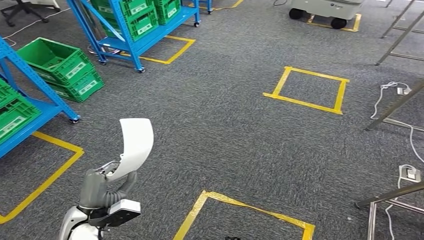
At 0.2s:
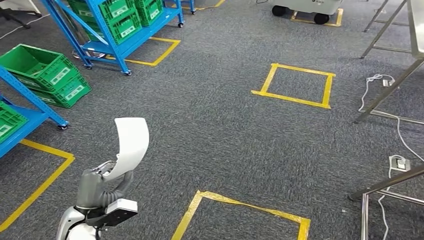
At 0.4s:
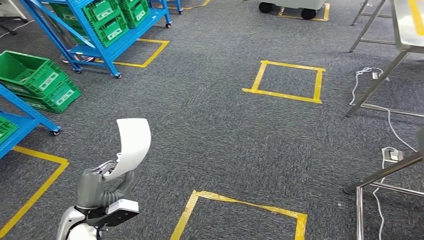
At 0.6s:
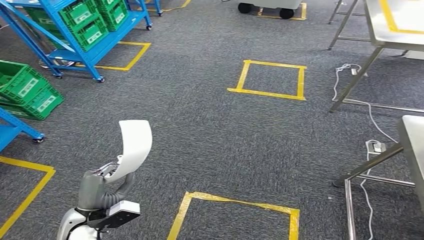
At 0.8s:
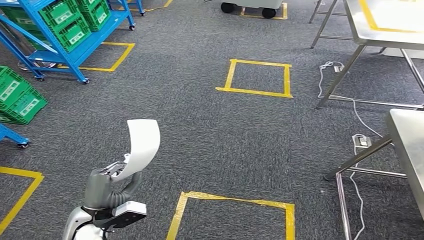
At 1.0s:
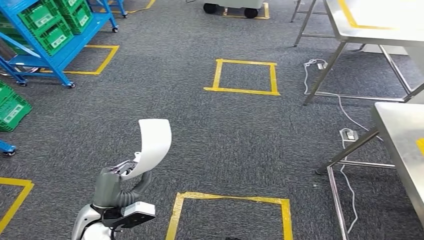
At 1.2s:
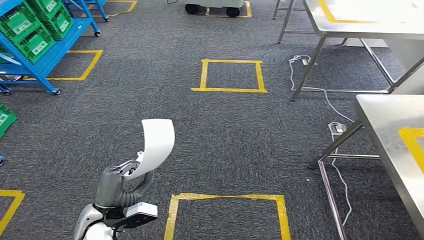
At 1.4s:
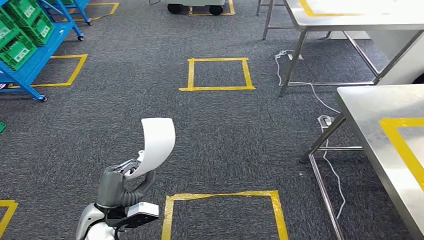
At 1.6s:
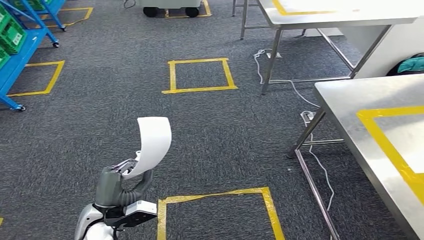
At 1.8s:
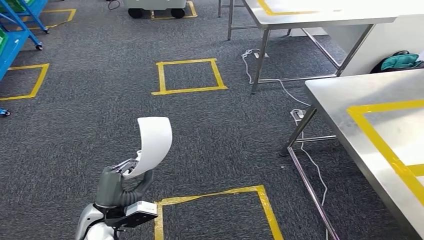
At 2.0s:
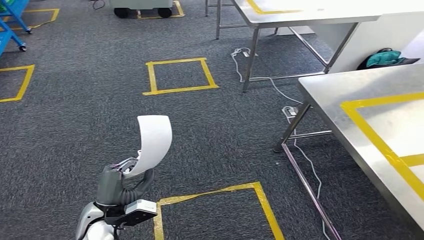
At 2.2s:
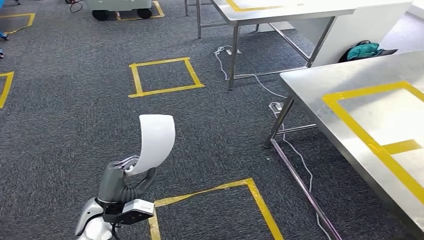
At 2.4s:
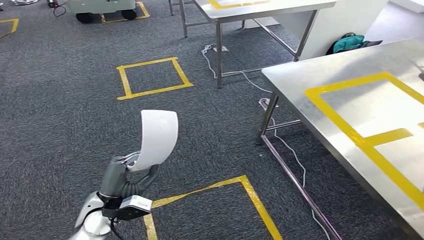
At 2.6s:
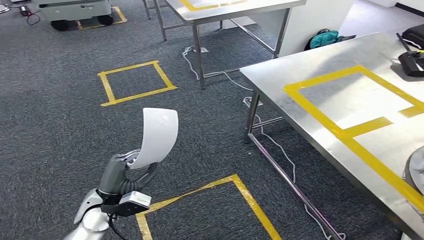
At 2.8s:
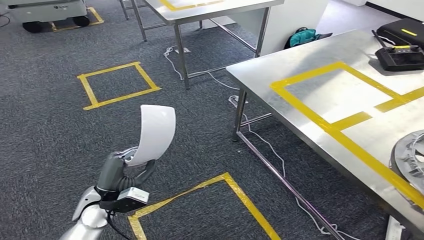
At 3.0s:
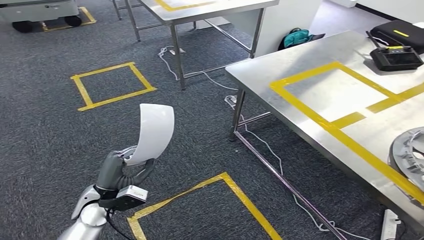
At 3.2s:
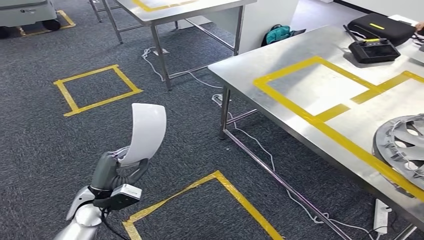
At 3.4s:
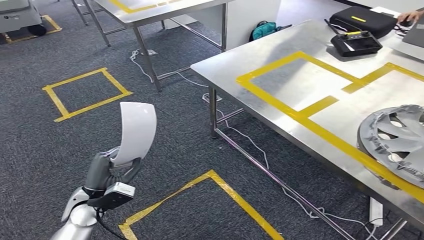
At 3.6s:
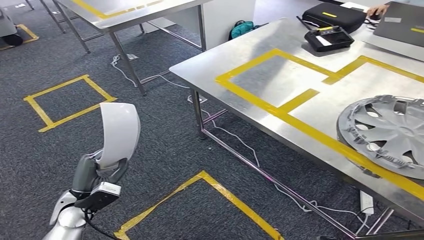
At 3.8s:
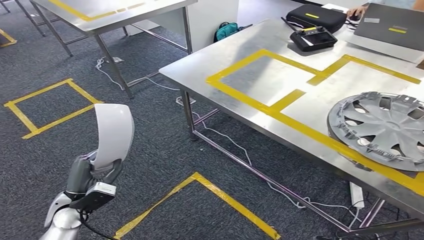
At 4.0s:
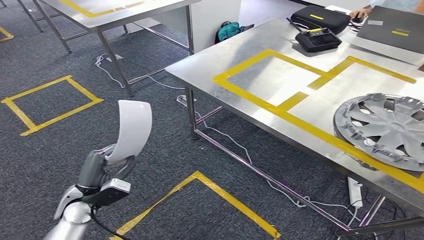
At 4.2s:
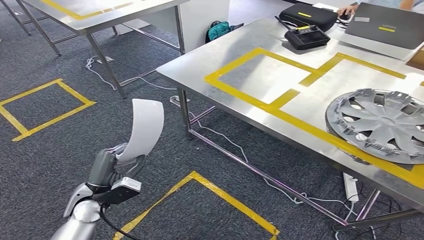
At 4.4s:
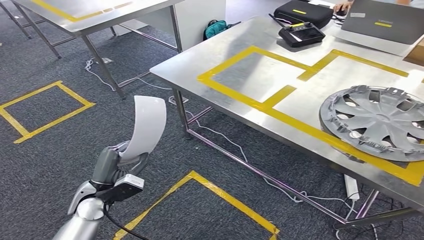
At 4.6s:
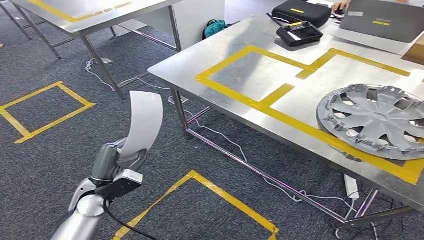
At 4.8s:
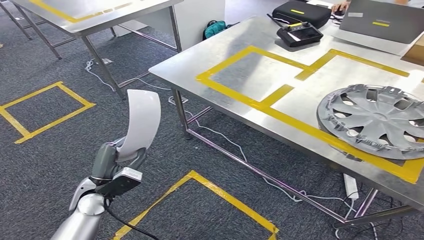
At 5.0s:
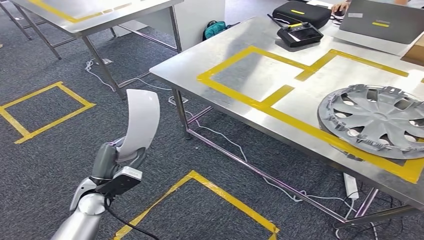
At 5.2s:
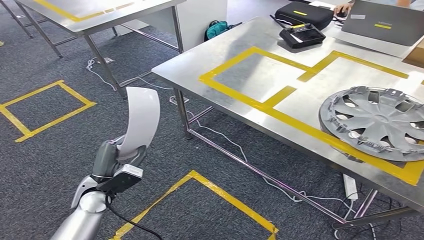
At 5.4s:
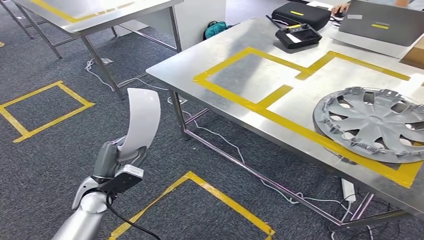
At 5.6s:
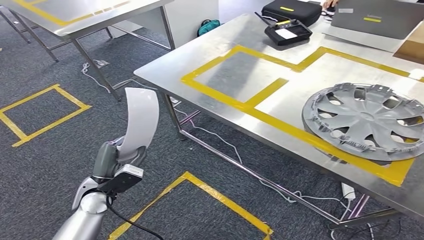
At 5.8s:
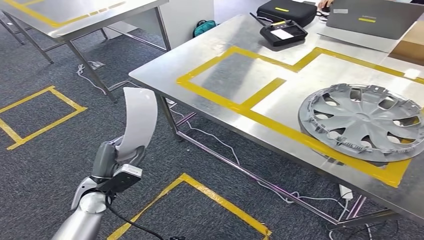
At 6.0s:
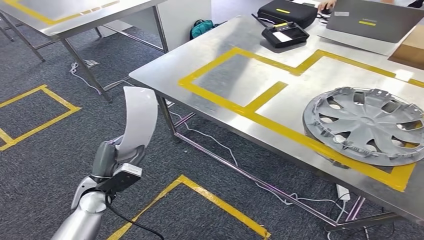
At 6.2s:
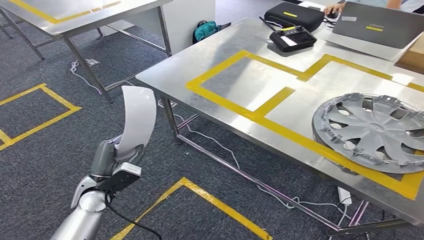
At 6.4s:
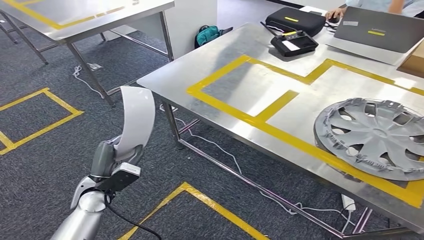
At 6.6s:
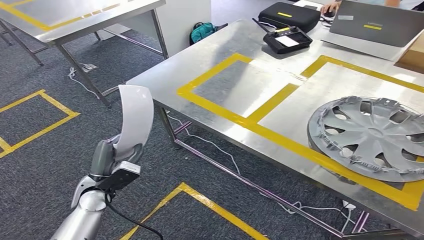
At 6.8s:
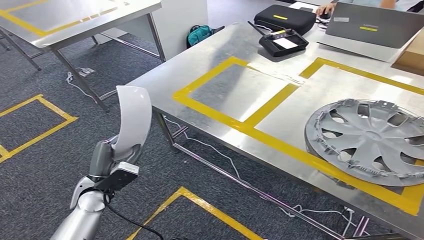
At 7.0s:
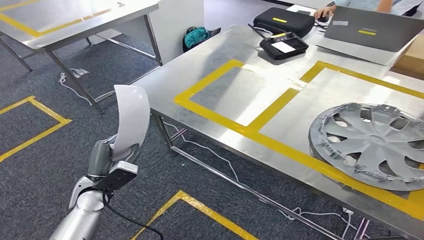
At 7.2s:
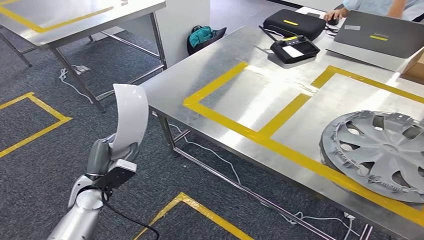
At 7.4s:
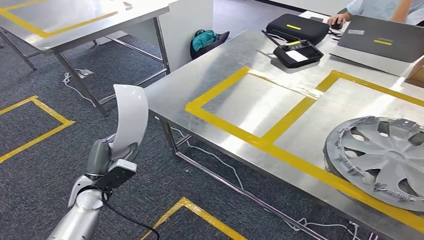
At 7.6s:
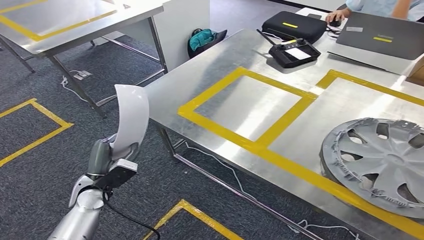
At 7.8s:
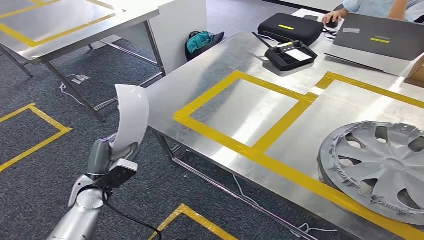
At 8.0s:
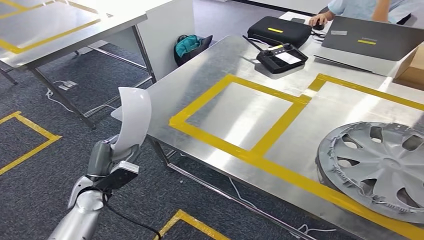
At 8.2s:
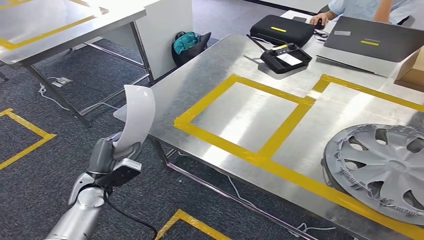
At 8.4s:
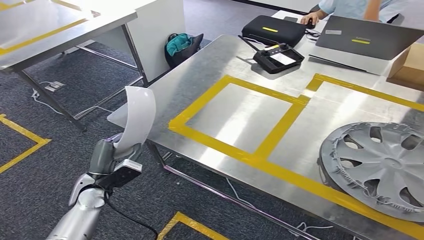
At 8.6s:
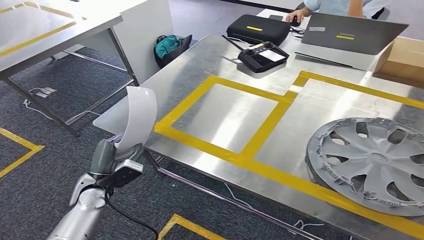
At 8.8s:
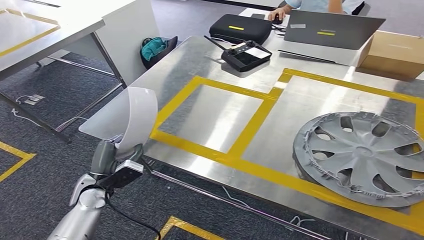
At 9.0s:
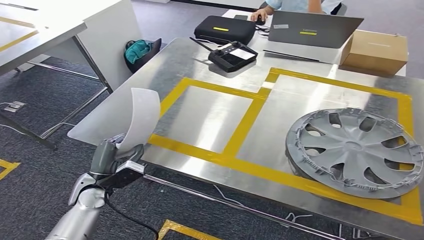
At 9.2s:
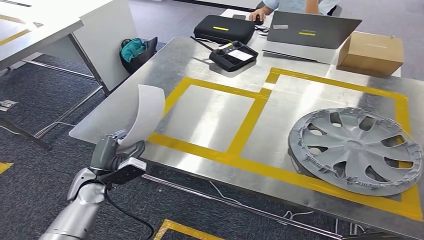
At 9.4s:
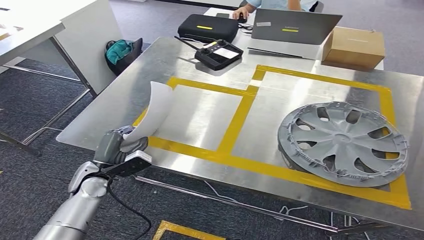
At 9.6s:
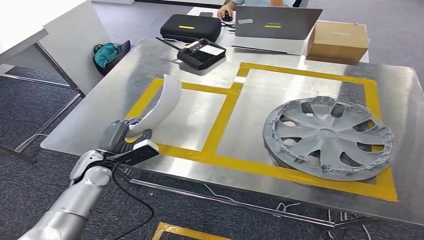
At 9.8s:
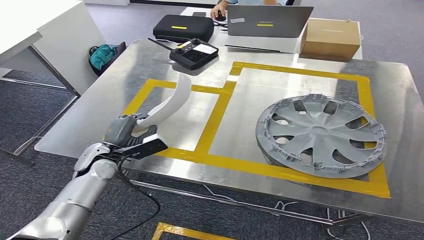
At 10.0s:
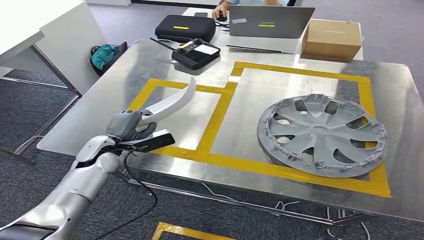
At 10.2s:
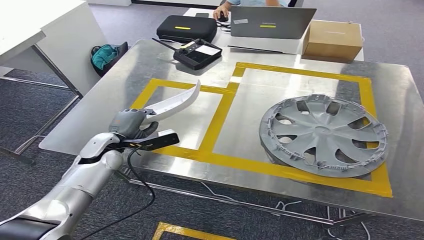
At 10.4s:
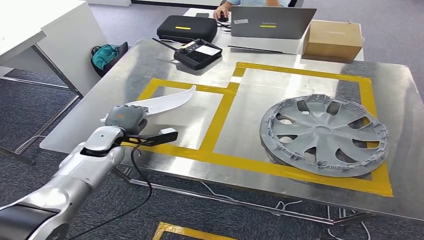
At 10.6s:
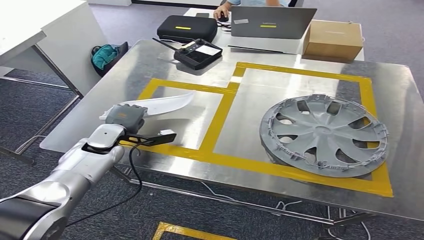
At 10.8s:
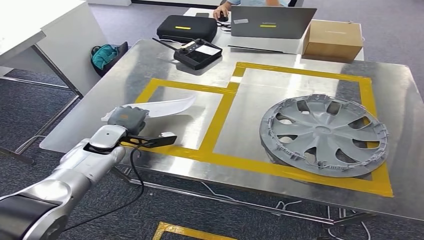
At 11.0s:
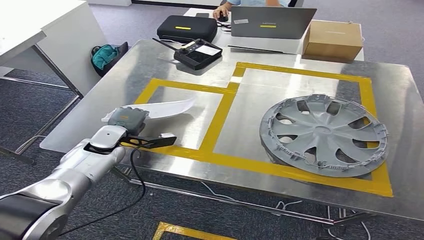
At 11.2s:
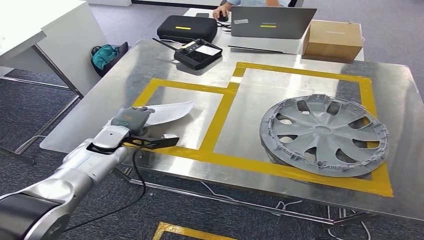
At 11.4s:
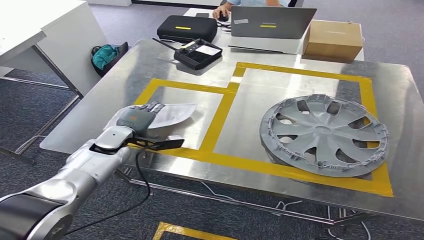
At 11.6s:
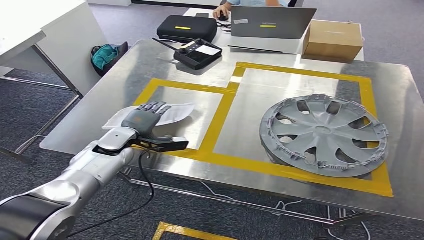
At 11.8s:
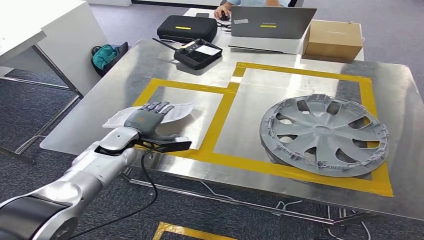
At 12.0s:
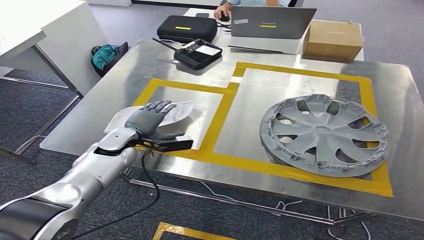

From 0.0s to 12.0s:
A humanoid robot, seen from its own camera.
Step, from 0.0s to 8.2s: Move the small component to the workbench.
From 10.4s to 12.0s: The hands stay close to where they were, moving slightly.

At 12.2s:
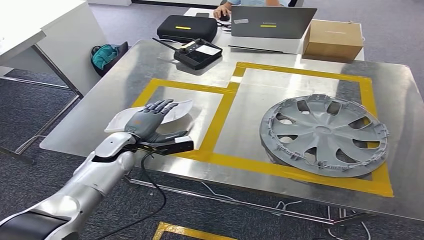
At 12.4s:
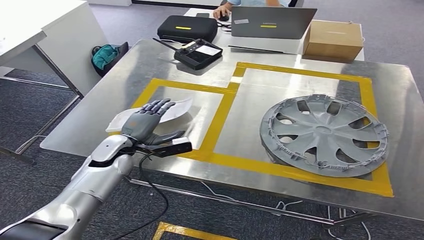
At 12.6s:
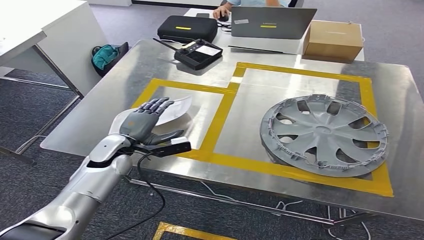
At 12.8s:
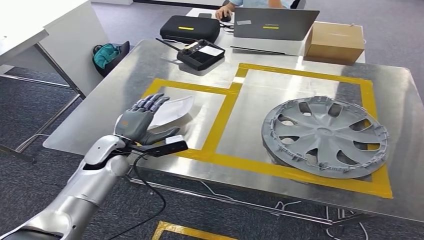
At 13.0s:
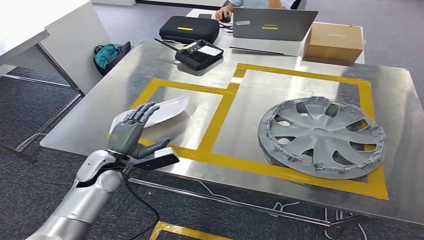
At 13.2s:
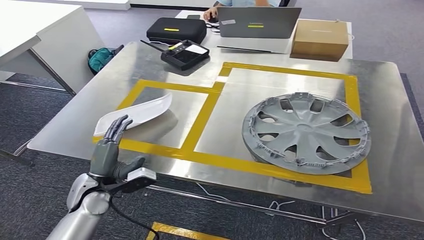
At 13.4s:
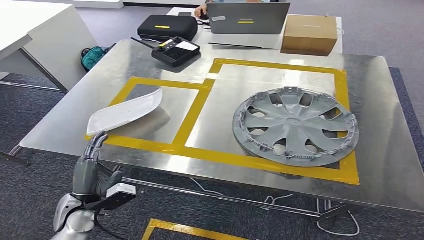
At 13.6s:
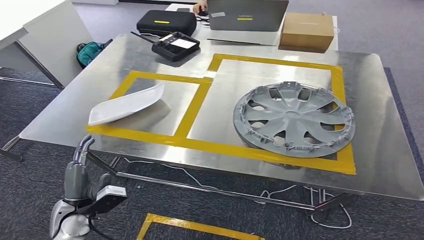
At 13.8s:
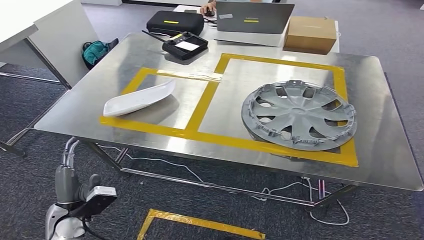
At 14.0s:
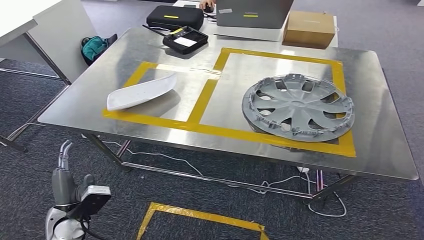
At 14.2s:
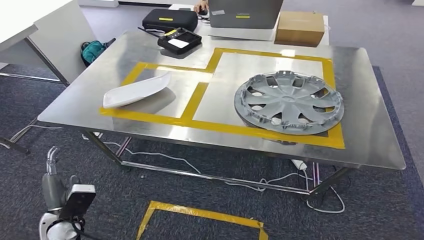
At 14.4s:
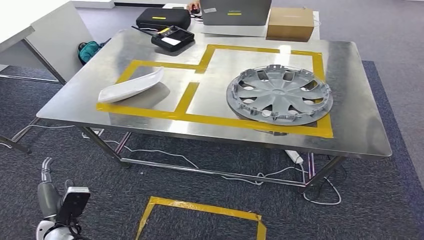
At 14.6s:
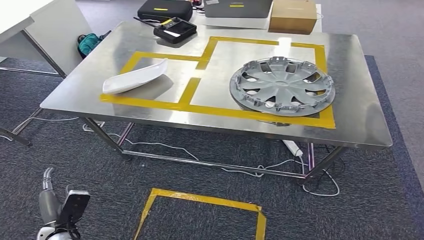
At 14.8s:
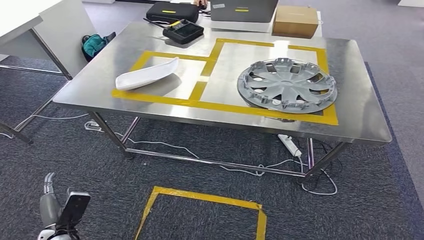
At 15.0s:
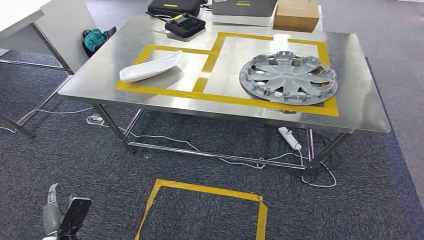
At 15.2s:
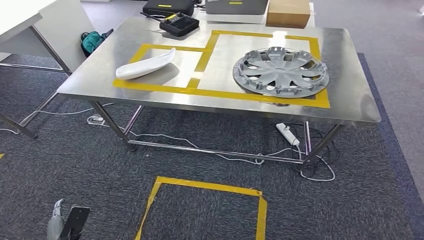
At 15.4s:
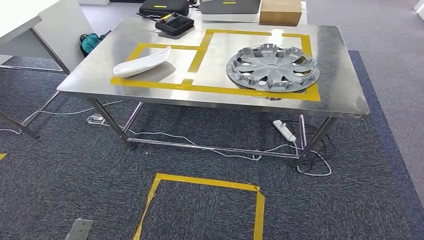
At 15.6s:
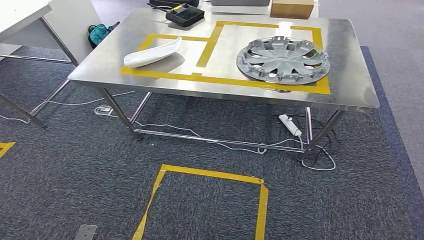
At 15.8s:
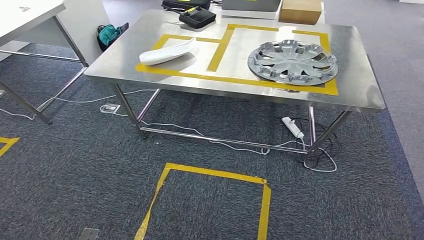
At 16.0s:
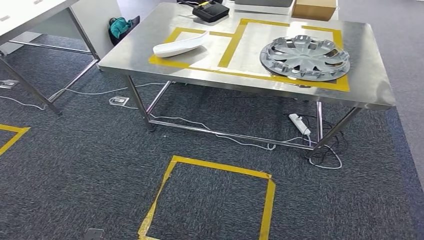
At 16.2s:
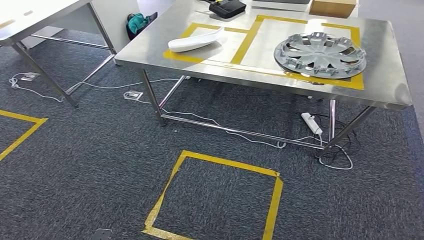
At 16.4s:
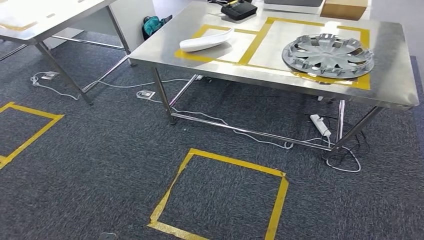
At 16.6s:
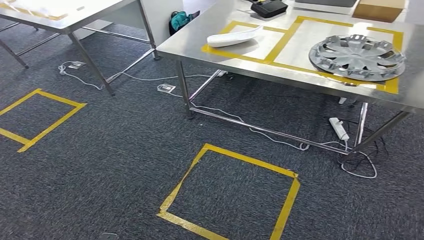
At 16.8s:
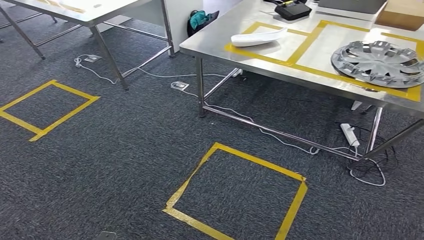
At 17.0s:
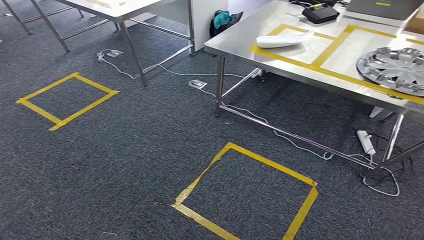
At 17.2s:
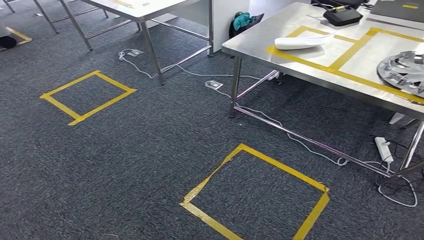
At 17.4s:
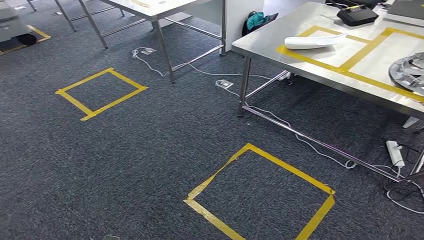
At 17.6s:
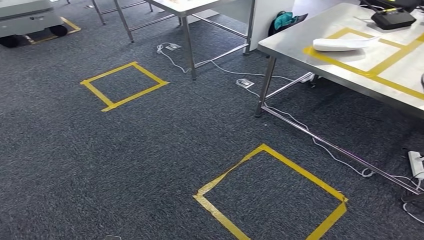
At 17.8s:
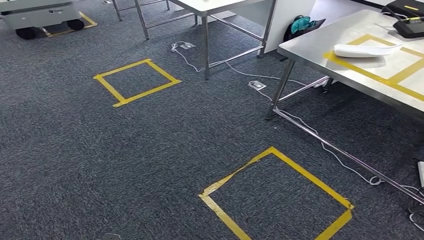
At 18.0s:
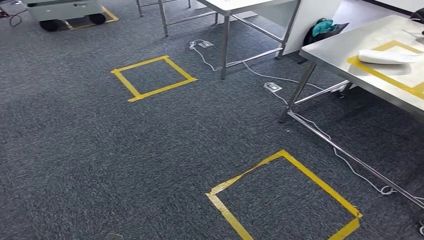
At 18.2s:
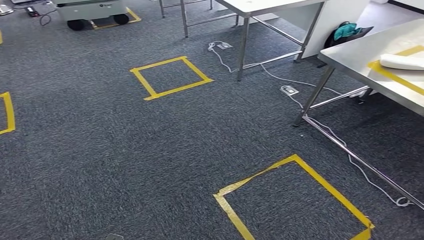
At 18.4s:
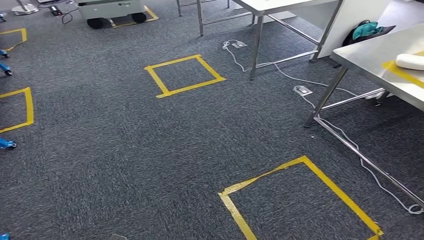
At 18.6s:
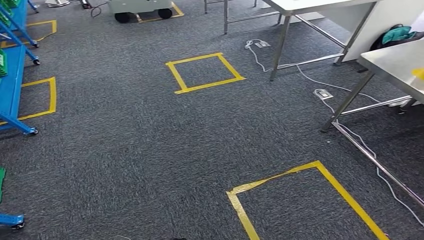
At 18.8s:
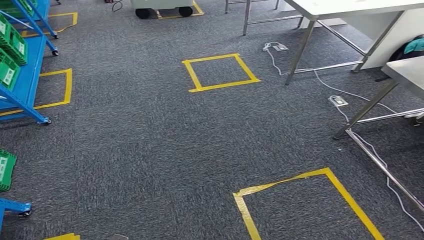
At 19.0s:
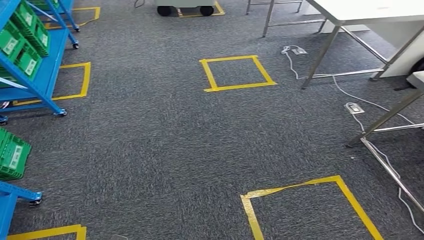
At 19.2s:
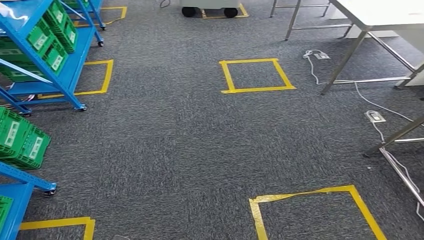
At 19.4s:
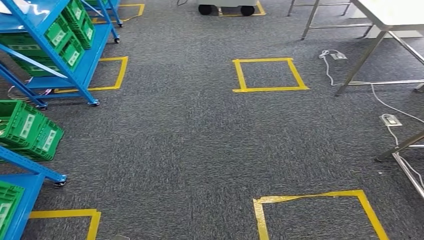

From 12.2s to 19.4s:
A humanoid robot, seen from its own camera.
Step, from 12.2s to 14.4s: Insert the small component into the corresponding slot on the workbench.
